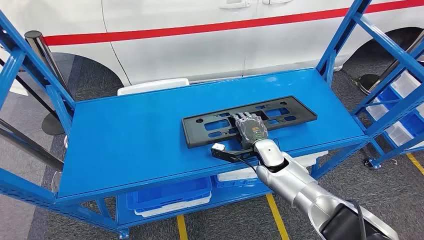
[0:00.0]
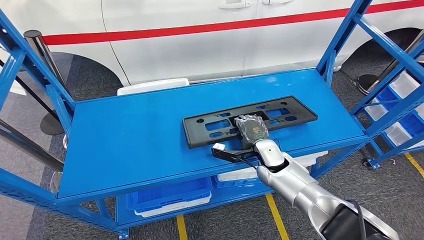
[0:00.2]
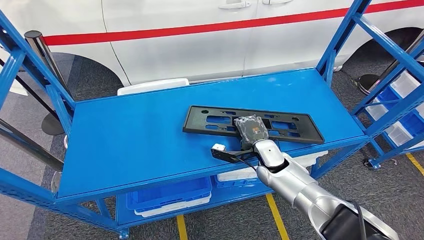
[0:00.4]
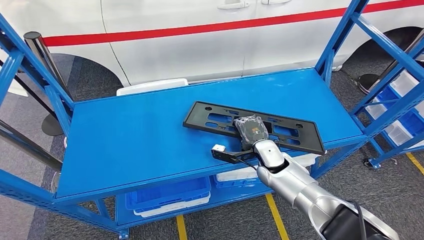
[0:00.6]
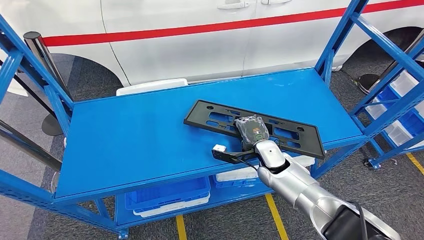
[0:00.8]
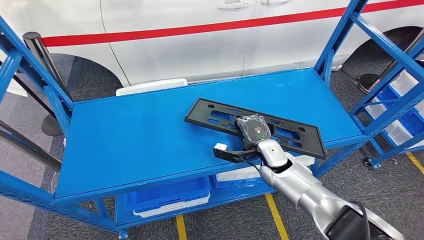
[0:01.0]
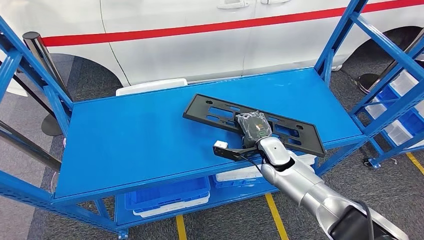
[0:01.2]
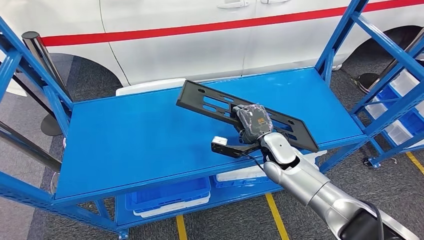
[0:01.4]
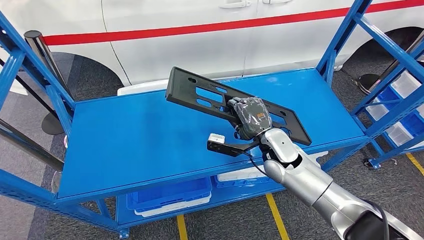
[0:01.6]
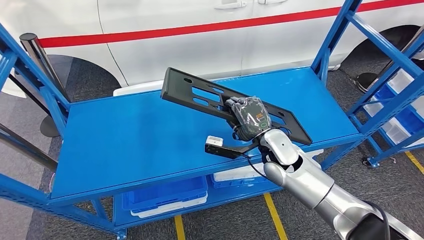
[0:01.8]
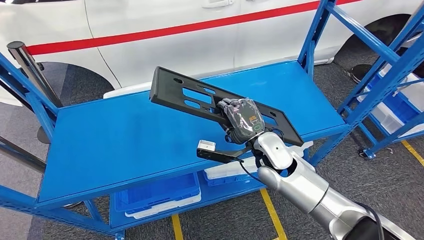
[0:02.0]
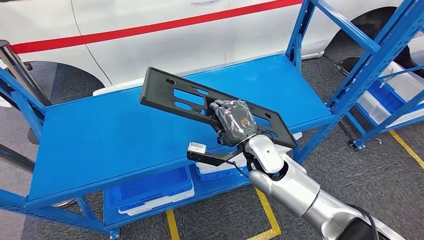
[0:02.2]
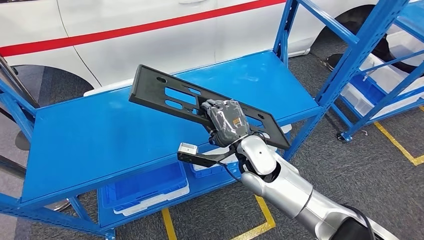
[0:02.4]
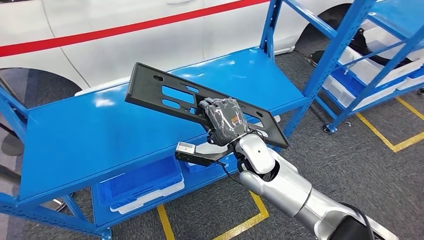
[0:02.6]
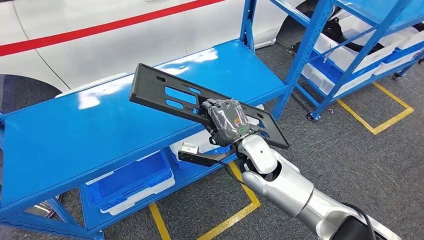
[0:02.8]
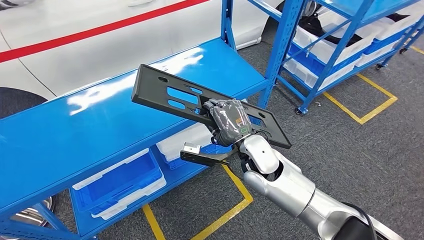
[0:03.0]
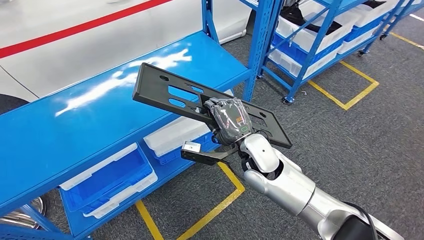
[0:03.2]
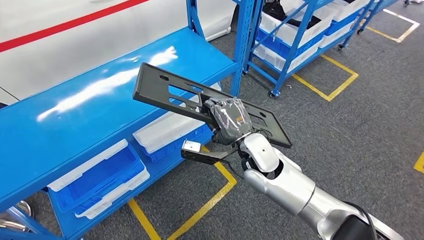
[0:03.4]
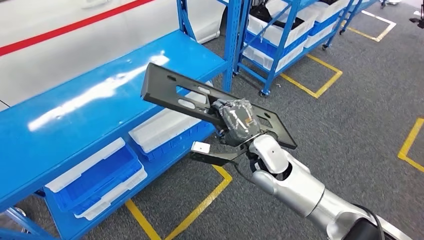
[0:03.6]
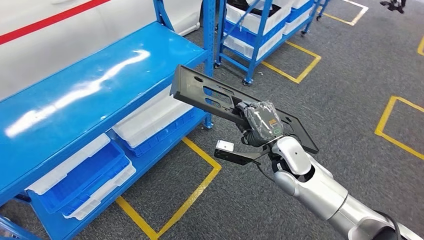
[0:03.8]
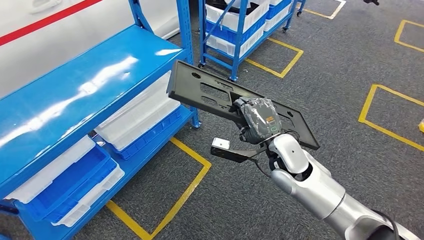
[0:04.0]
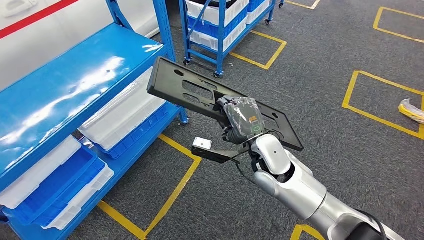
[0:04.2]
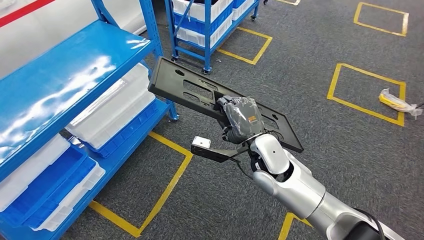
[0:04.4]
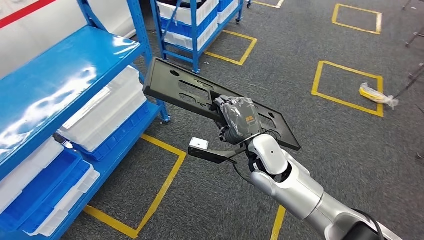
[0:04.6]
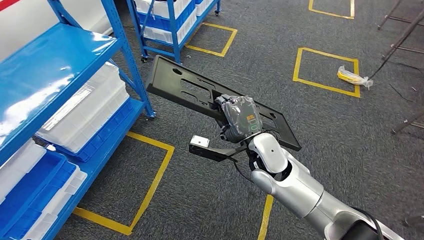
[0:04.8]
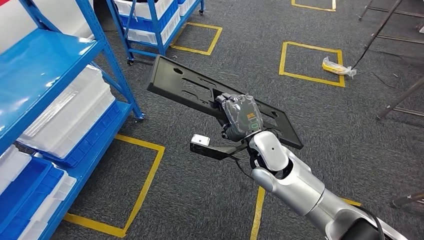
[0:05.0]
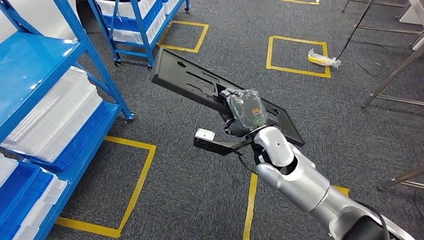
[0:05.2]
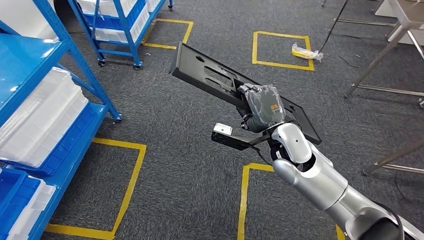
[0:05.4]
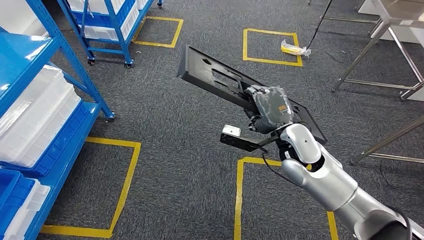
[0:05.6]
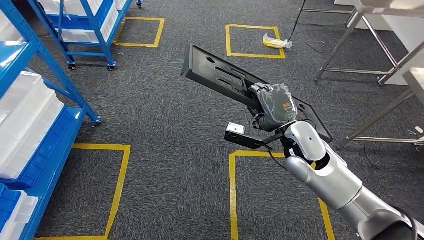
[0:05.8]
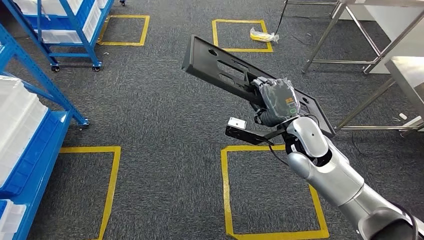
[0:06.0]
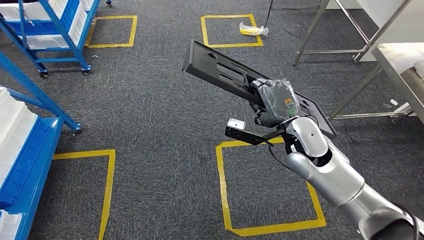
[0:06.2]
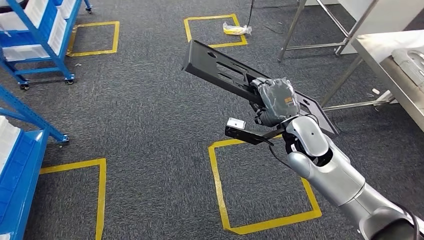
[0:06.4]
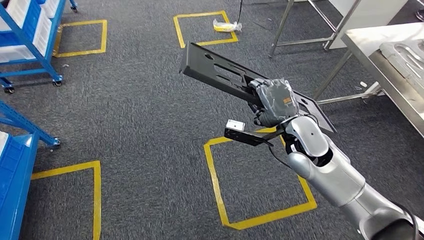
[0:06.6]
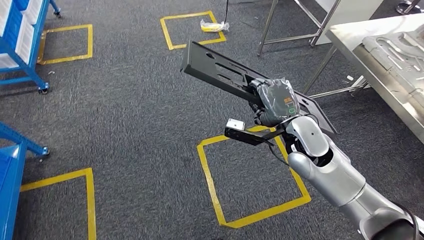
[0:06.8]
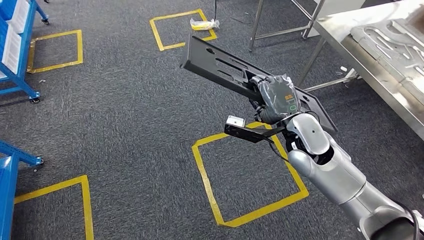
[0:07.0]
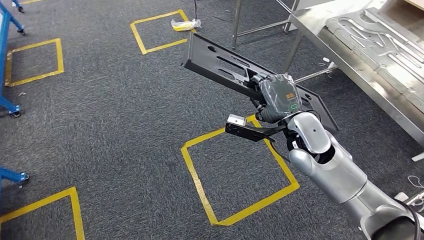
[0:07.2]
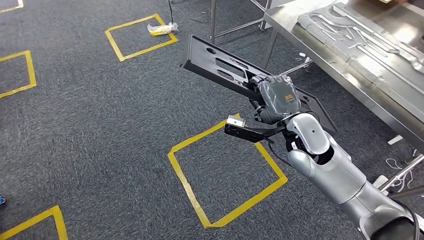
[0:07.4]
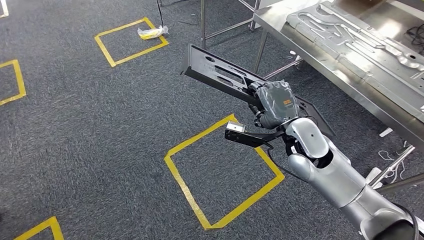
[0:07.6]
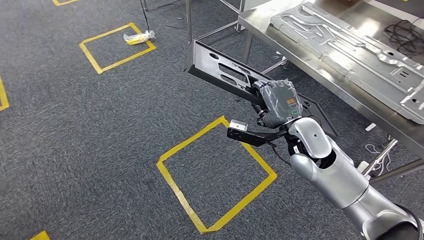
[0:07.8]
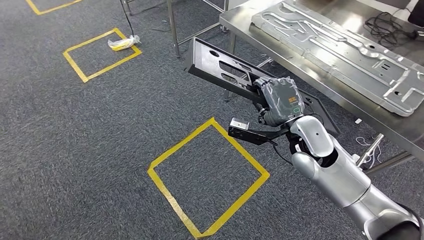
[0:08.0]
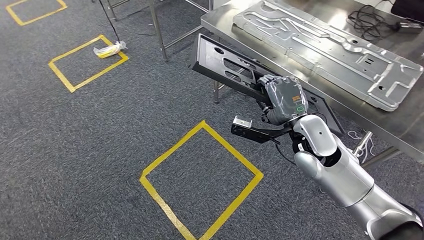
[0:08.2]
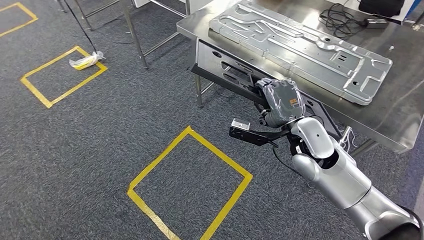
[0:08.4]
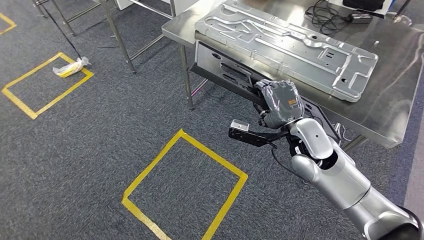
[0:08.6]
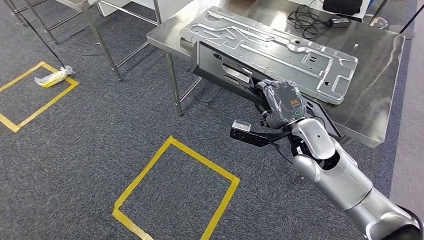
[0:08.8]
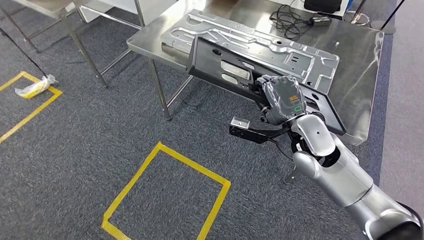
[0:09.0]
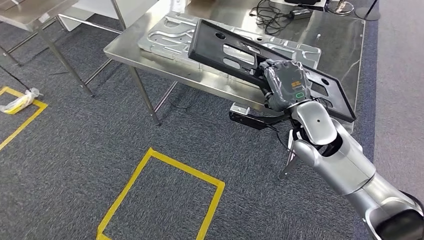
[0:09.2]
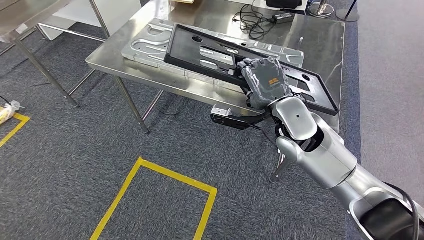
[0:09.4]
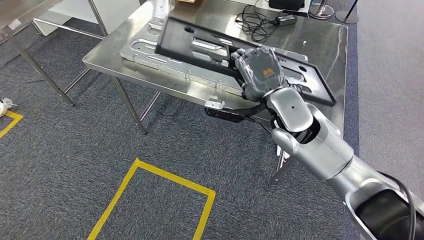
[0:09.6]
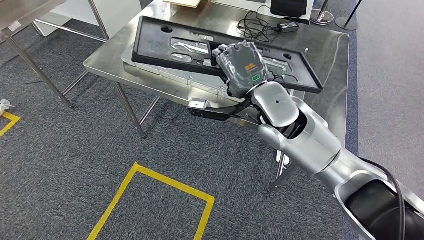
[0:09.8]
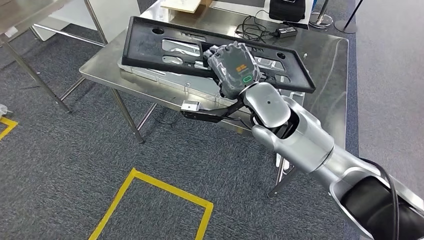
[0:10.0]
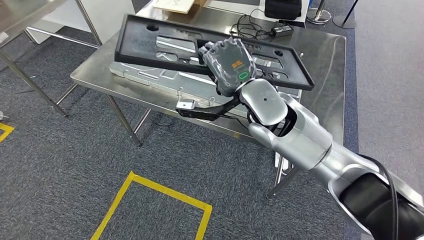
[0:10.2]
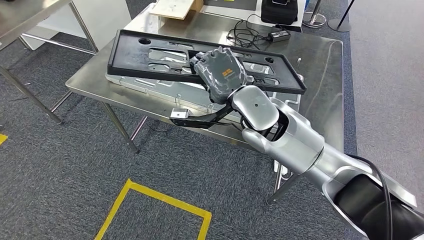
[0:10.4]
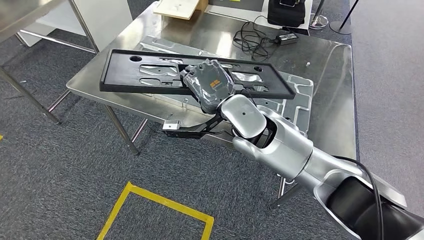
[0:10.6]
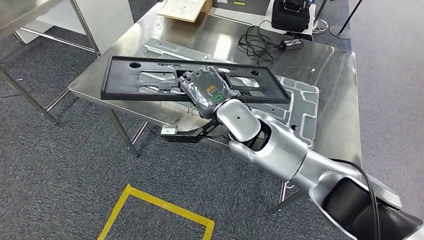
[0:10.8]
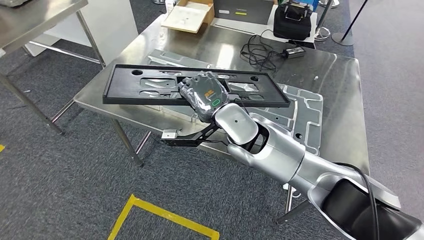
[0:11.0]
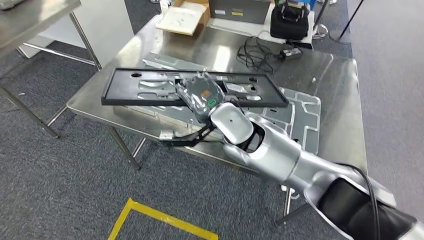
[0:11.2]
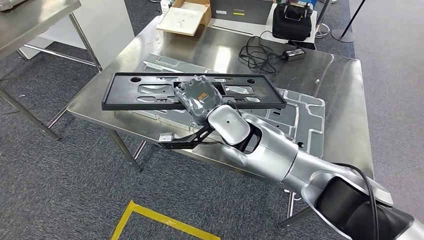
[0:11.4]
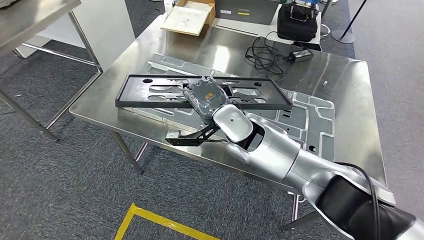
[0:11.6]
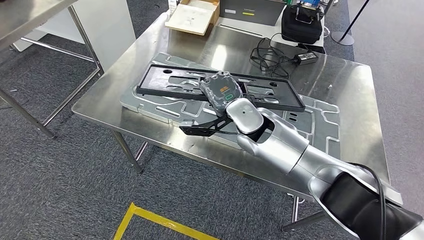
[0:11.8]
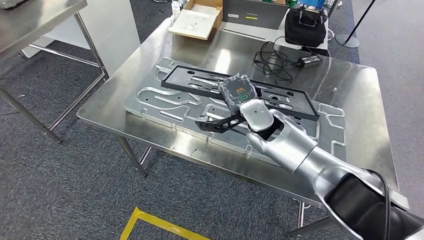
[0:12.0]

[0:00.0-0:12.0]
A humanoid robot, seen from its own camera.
Step, 0:00.0 to 0:03.8: Pick up the large parts from the shelf.

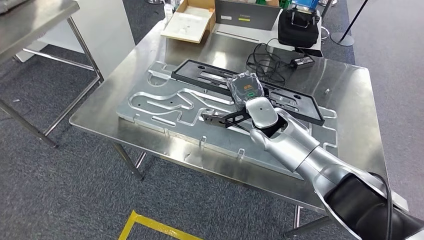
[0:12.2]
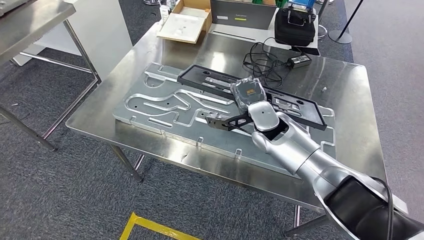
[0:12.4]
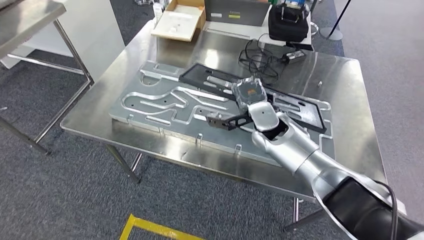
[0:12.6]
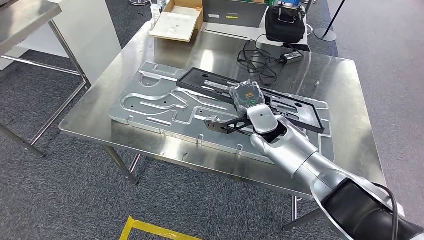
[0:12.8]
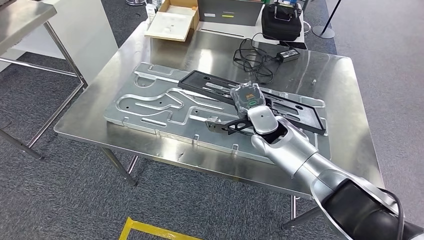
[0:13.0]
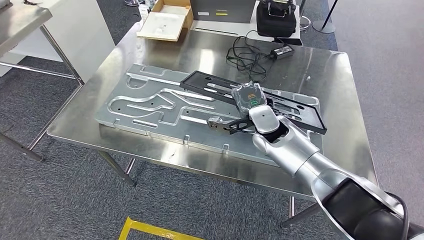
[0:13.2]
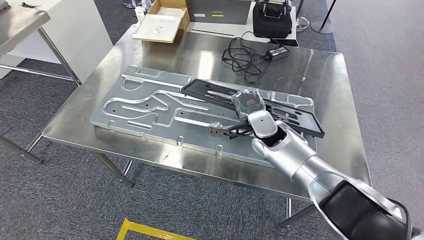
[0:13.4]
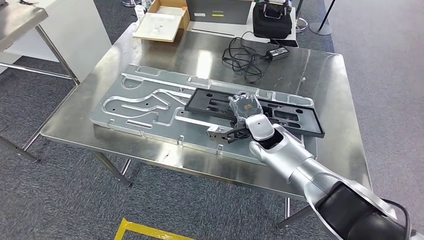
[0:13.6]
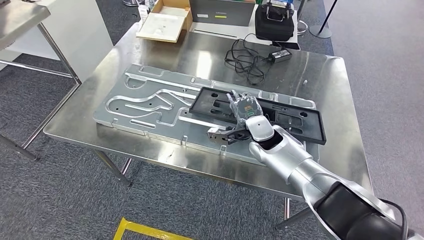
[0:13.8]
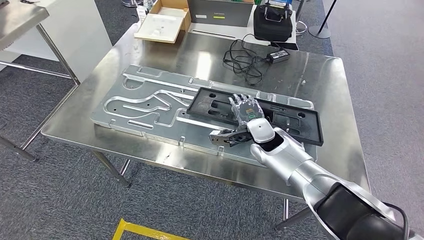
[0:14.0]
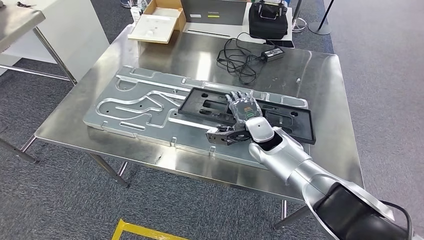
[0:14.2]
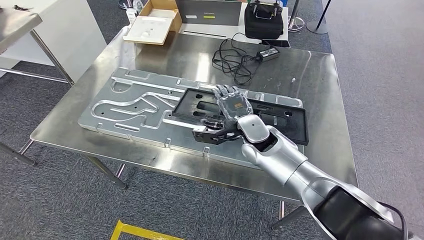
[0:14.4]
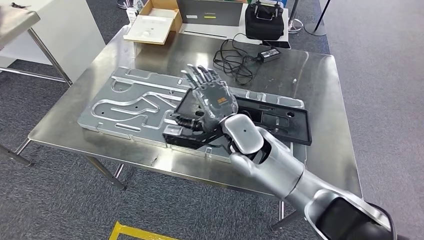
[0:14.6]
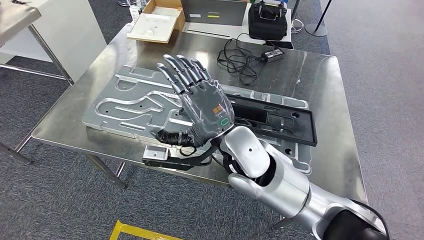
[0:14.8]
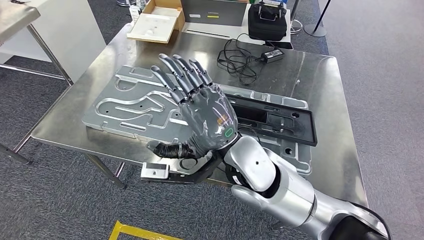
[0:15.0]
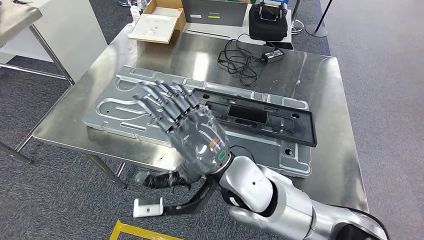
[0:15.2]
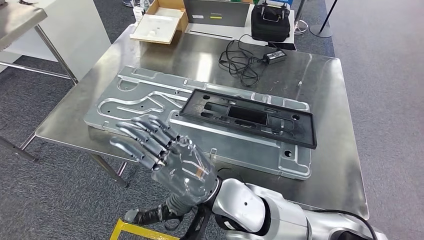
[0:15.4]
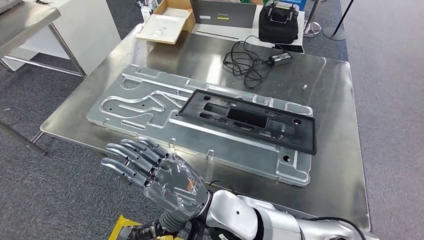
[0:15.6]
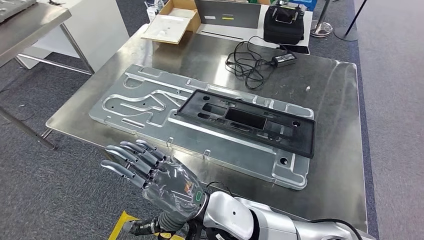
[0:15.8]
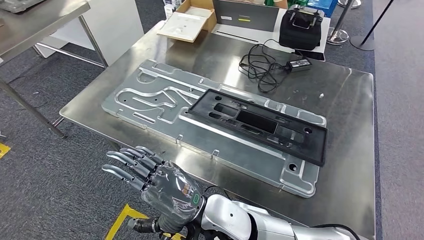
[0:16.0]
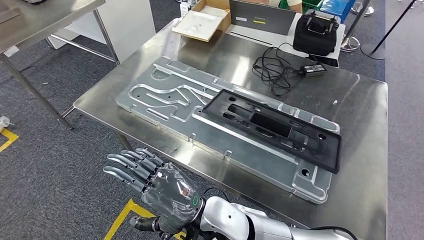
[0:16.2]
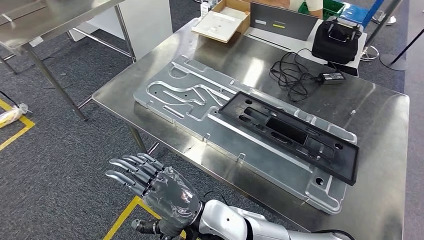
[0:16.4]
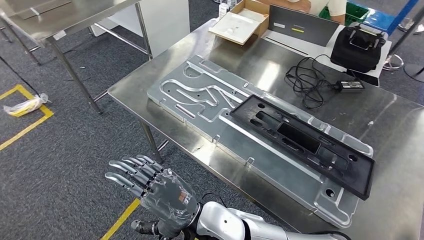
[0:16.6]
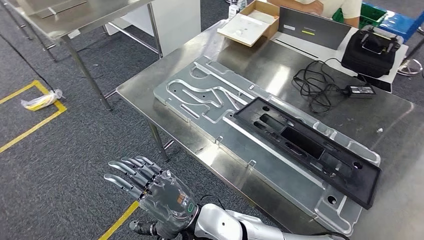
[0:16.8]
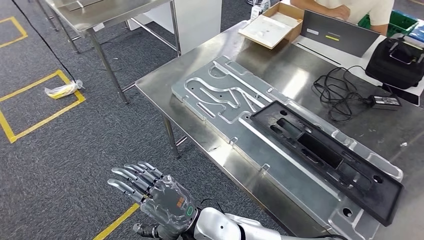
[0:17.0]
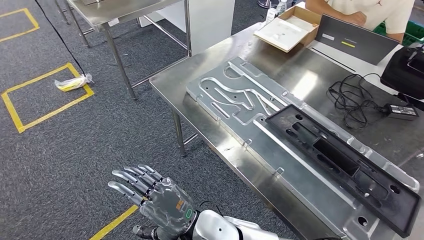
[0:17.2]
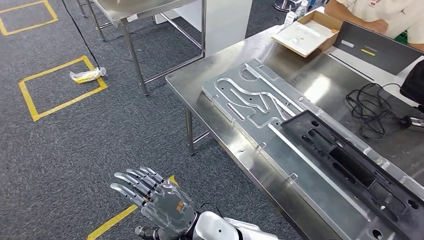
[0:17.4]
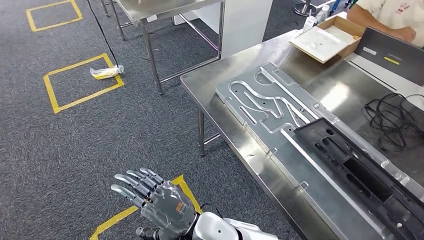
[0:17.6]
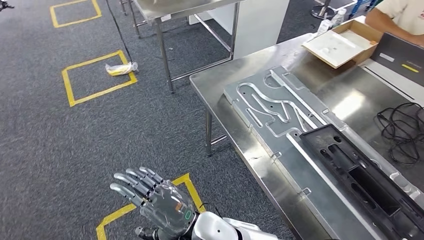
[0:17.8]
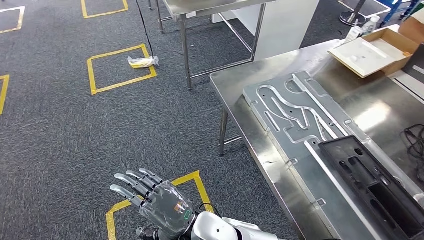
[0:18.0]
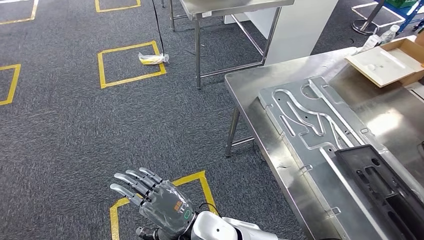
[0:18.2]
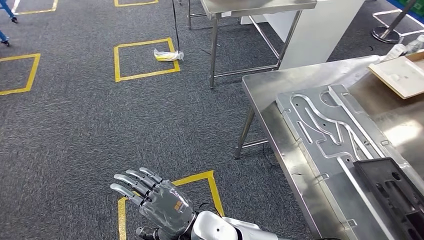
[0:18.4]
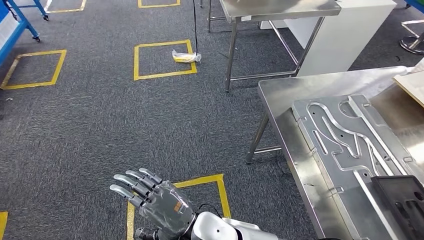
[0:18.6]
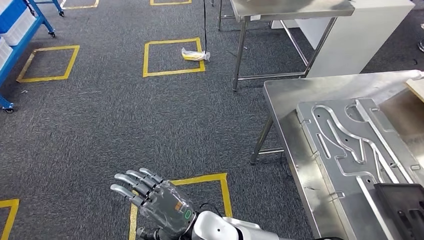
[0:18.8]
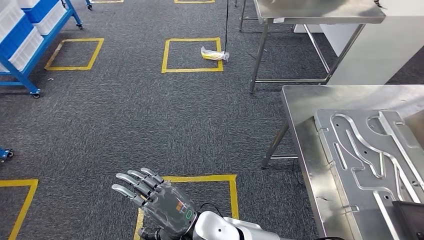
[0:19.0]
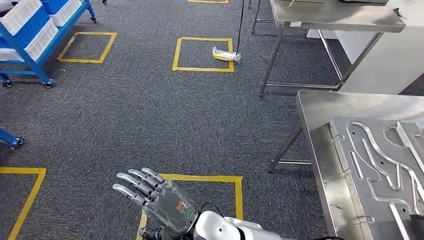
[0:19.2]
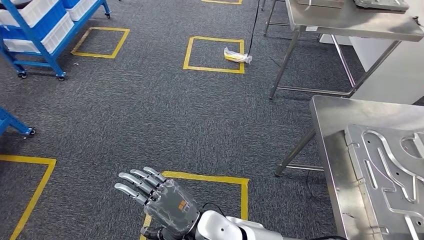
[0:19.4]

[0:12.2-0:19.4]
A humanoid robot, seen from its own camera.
Step, 0:13.0 to 0:15.8: Insert the large parts into the corresponding slots on the workbench.
